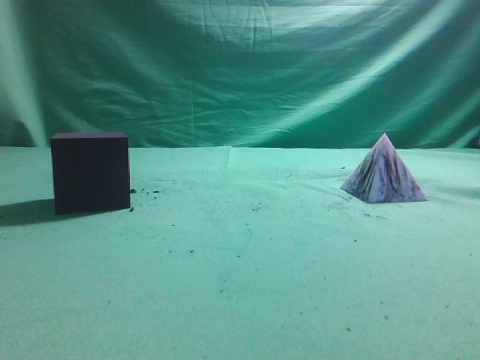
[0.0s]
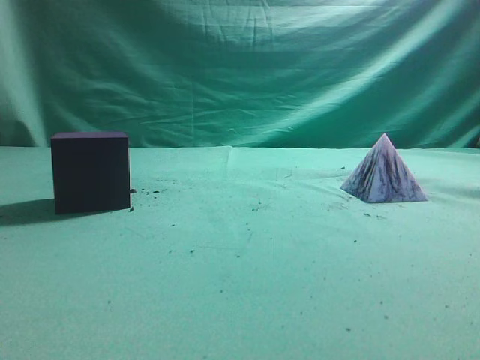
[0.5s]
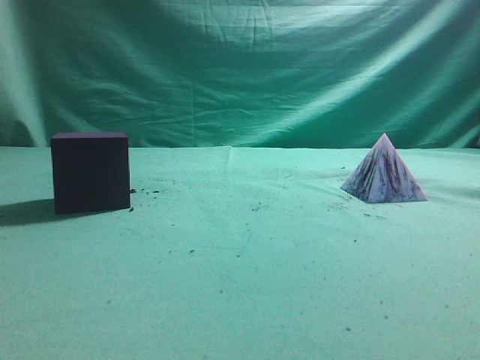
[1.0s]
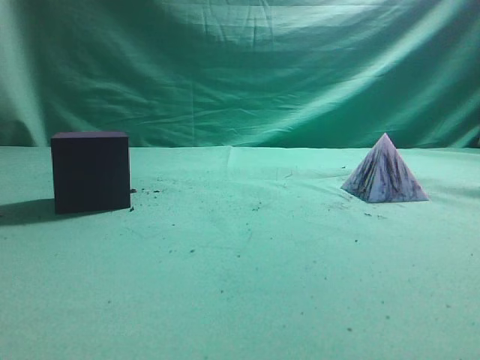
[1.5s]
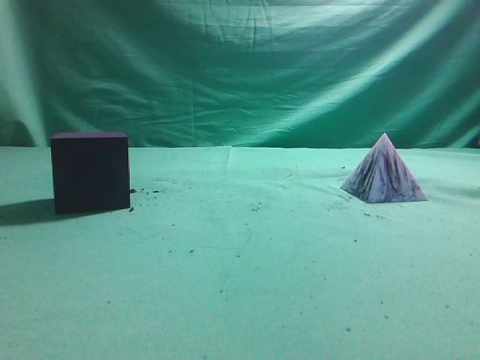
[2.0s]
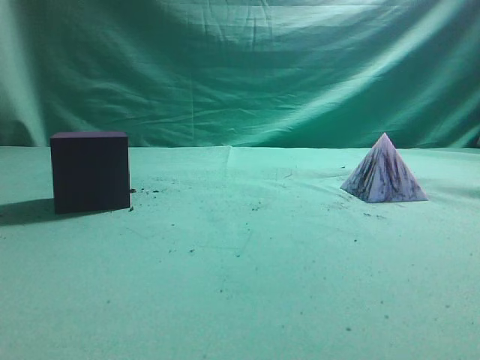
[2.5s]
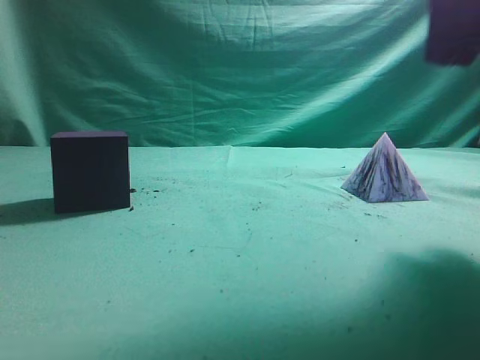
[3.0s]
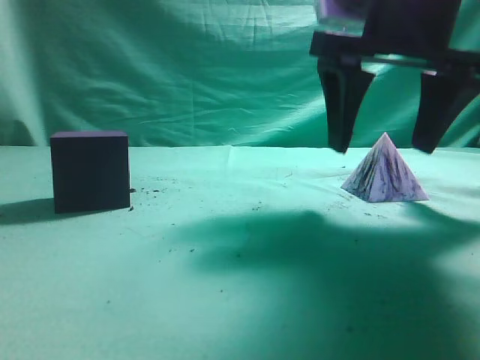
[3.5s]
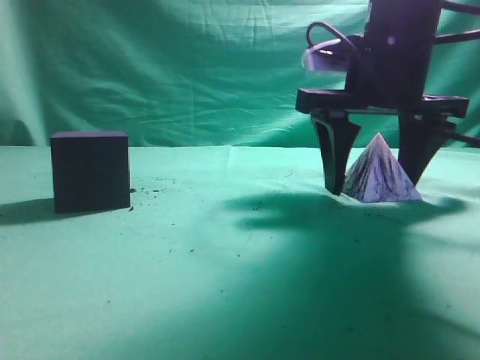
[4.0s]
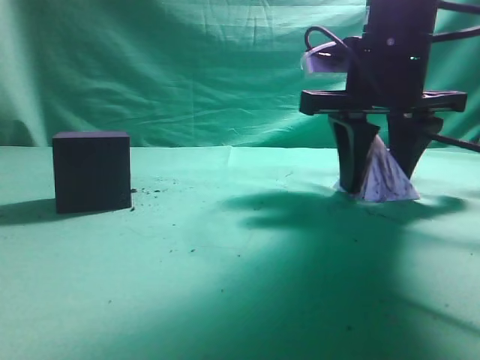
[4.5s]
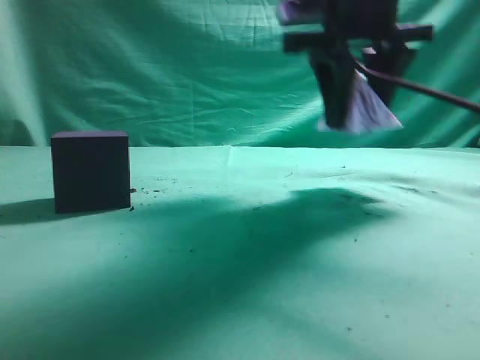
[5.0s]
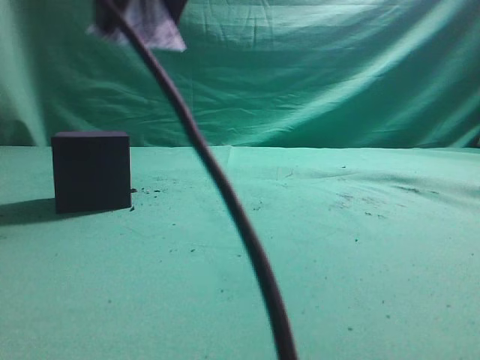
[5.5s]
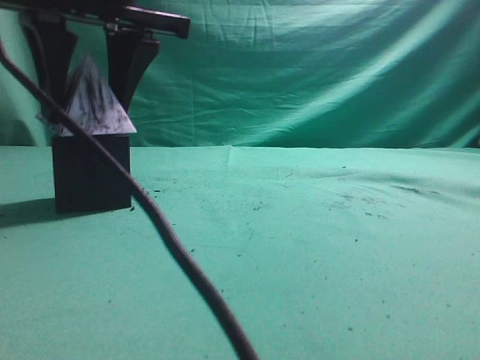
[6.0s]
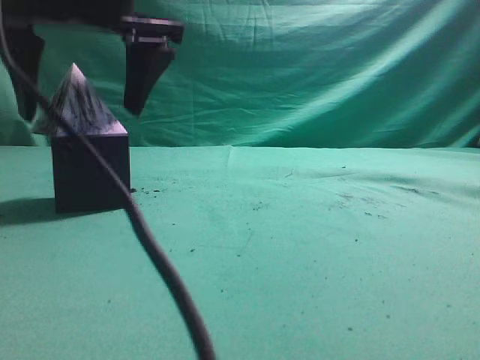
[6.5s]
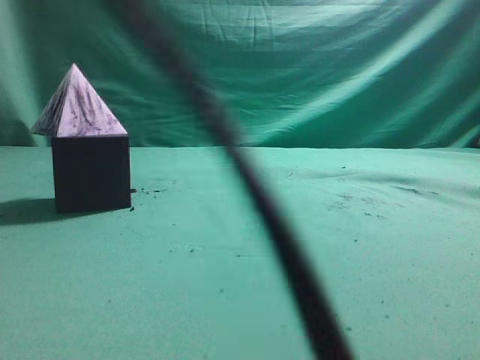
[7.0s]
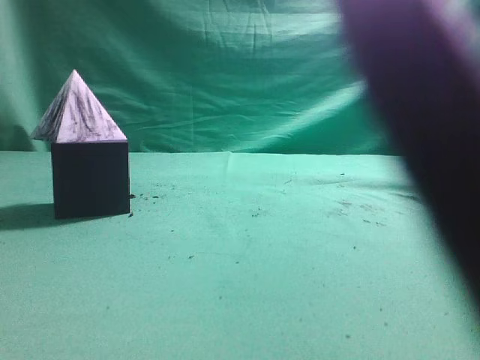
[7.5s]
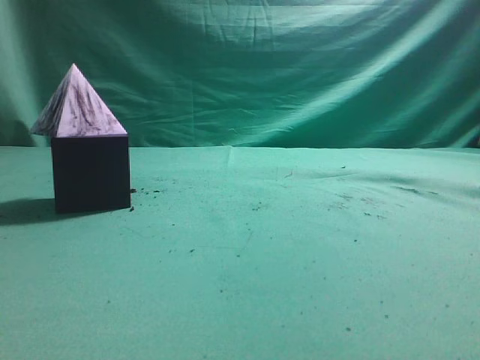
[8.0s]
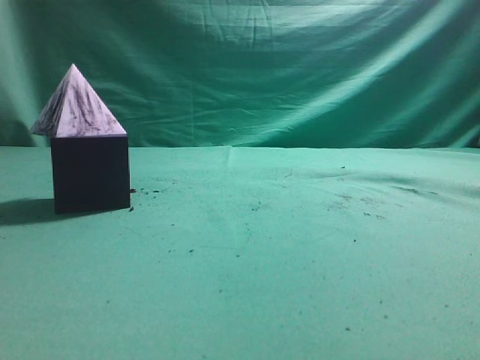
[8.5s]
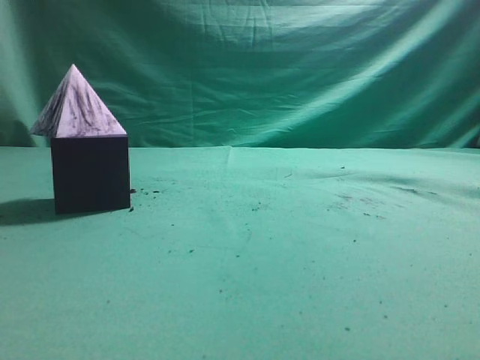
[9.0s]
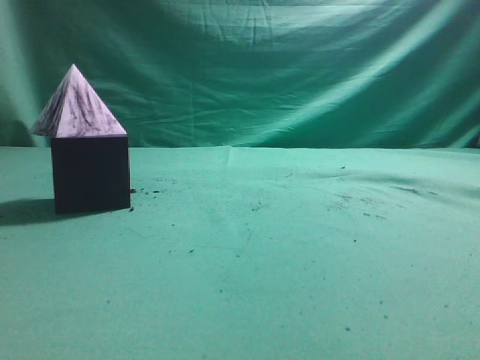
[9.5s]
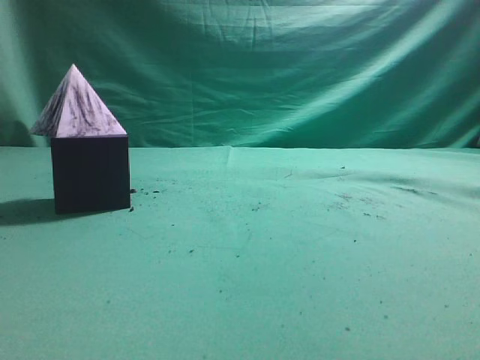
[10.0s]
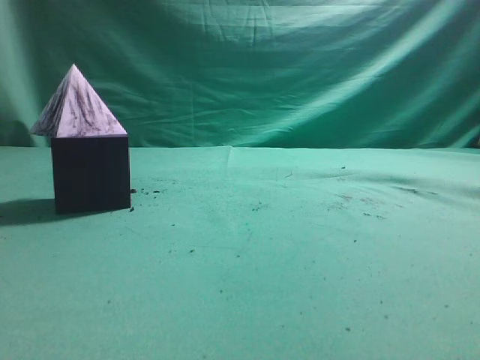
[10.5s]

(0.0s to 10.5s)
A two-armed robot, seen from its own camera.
Task of the whole recording: pick up the square pyramid from the table and place it on the cube block.
Step, 0.0s - 4.5s: Grasp the triangular block.
Step, 5.0s - 6.5s: Place the block onto the cube-shaped block.
2.0s - 4.0s: The right gripper moves forward, to the left and downward, some 35 cm, and opens its fingers.
4.0s - 6.5s: The right gripper shifts some 25 cm to the left.
6.5s - 8.5s: The right gripper is displaced to the right, backward and upward by about 50 cm, and closes.
